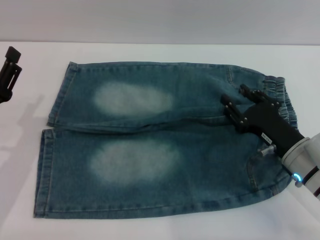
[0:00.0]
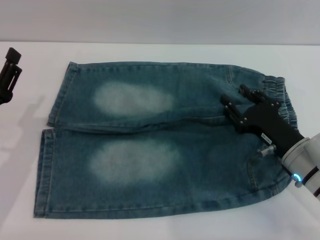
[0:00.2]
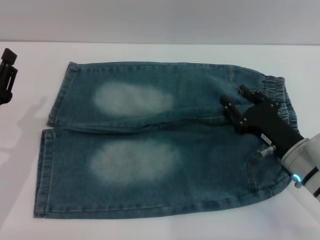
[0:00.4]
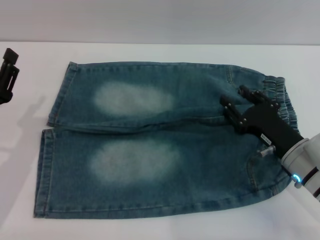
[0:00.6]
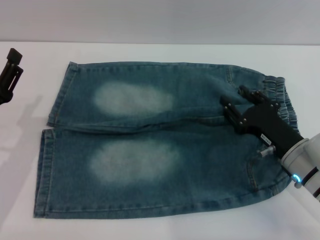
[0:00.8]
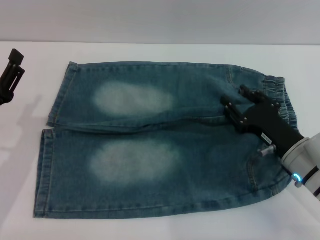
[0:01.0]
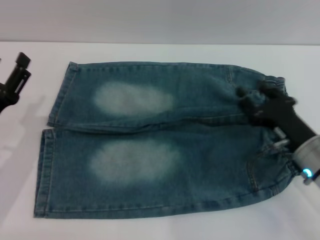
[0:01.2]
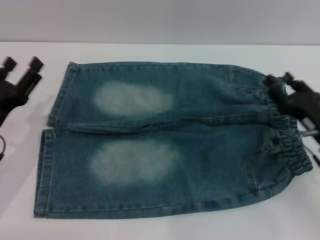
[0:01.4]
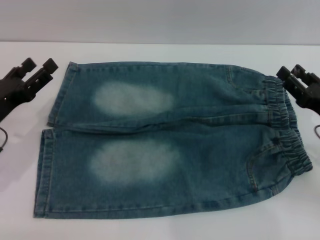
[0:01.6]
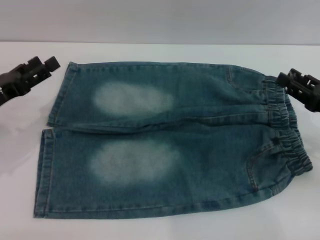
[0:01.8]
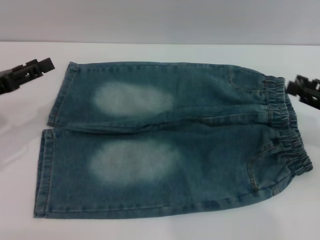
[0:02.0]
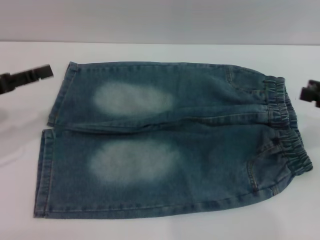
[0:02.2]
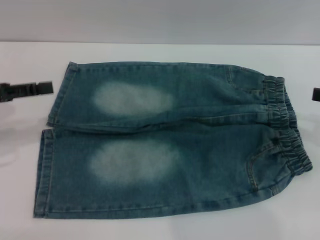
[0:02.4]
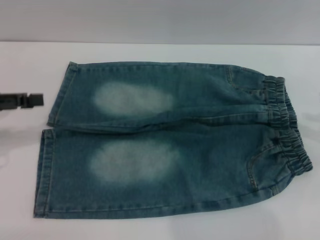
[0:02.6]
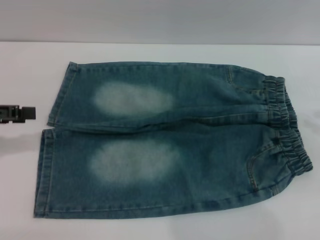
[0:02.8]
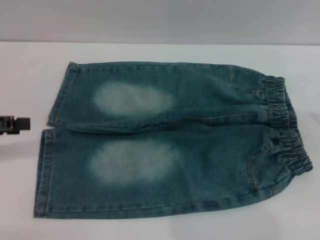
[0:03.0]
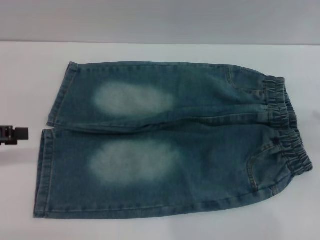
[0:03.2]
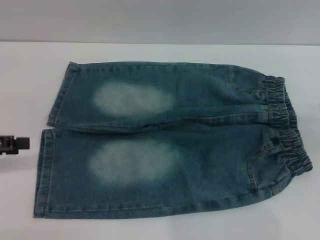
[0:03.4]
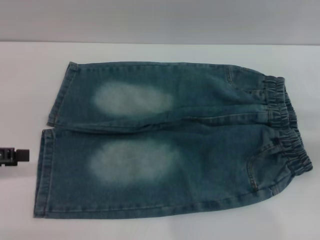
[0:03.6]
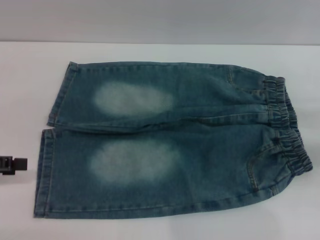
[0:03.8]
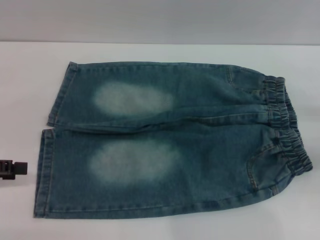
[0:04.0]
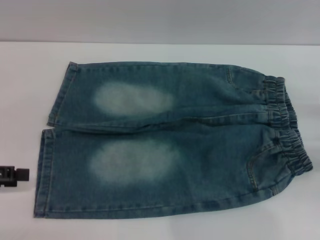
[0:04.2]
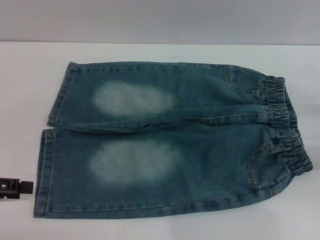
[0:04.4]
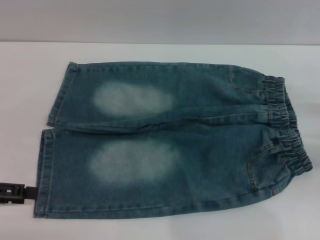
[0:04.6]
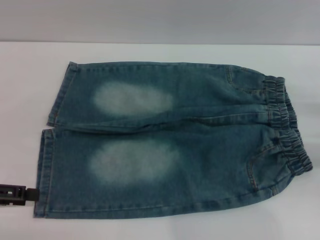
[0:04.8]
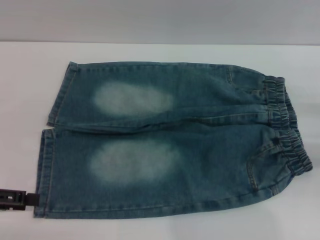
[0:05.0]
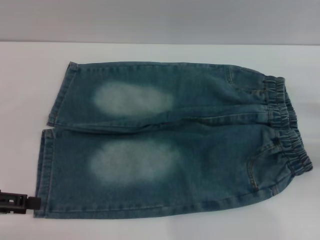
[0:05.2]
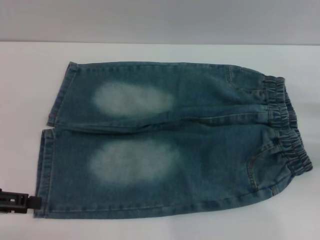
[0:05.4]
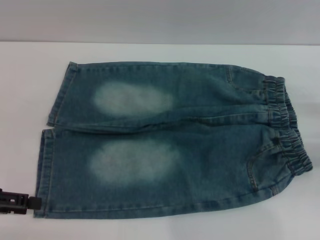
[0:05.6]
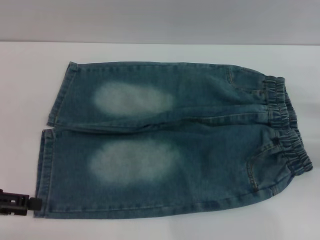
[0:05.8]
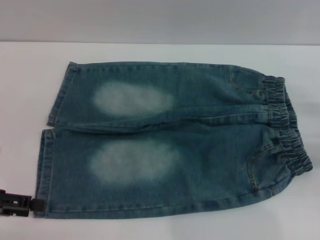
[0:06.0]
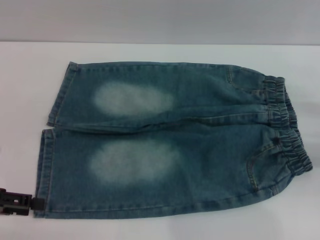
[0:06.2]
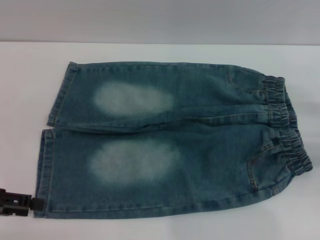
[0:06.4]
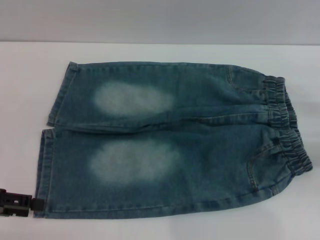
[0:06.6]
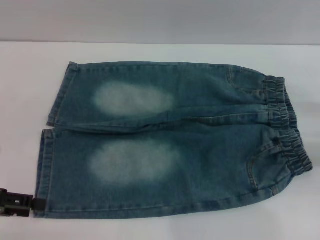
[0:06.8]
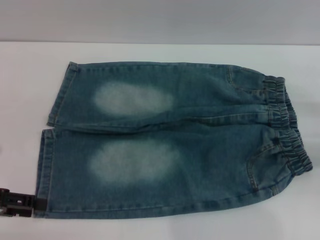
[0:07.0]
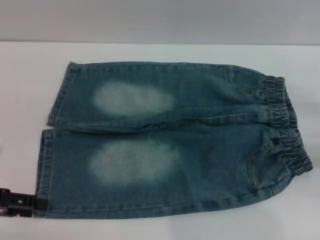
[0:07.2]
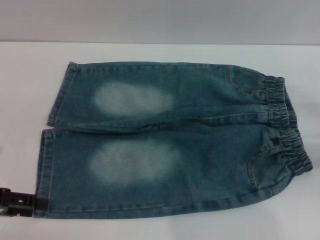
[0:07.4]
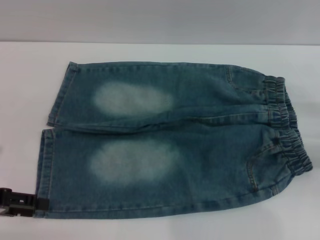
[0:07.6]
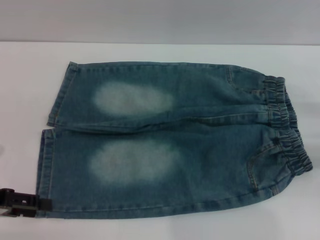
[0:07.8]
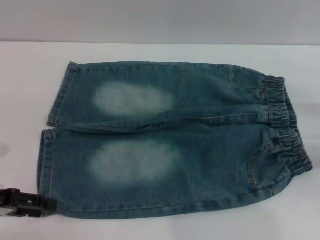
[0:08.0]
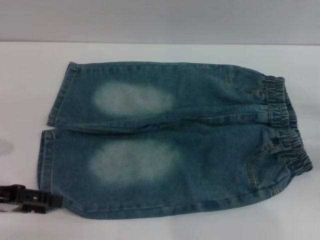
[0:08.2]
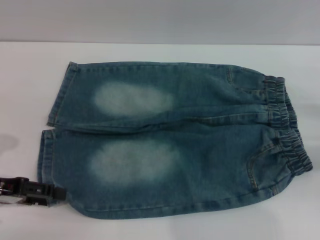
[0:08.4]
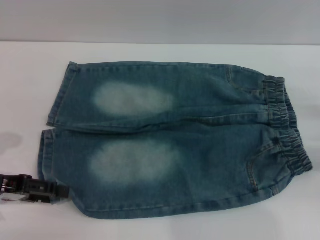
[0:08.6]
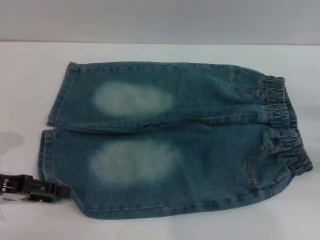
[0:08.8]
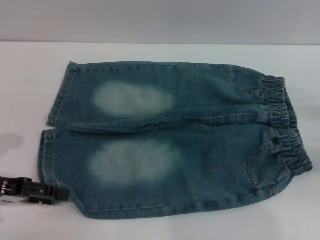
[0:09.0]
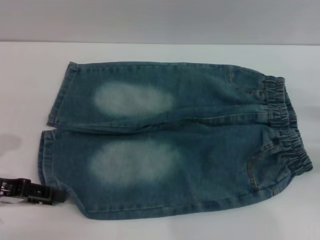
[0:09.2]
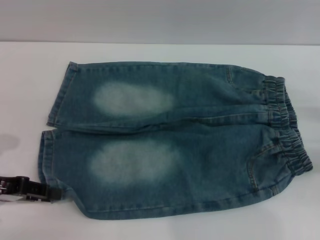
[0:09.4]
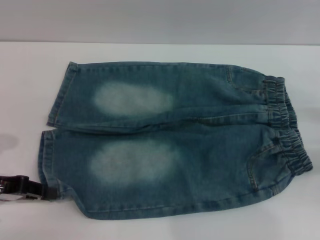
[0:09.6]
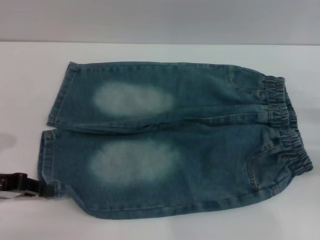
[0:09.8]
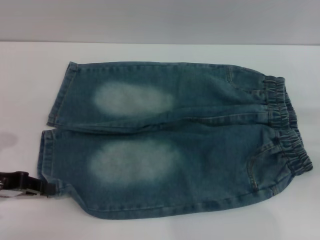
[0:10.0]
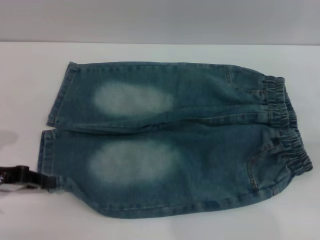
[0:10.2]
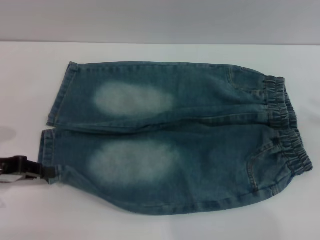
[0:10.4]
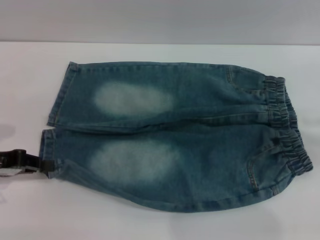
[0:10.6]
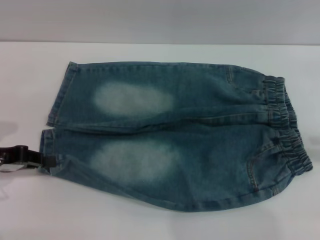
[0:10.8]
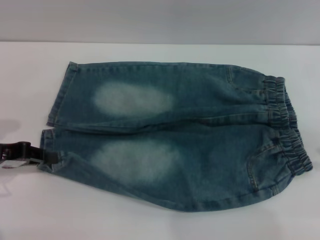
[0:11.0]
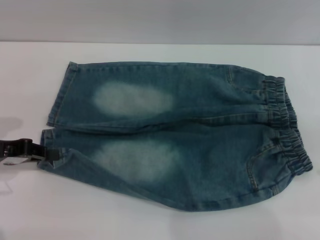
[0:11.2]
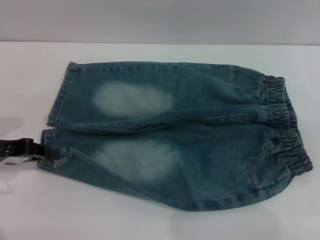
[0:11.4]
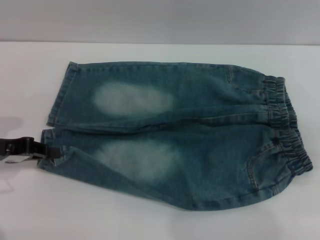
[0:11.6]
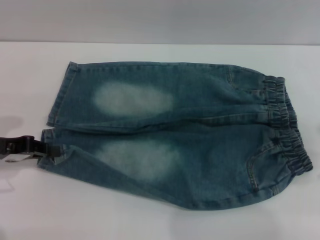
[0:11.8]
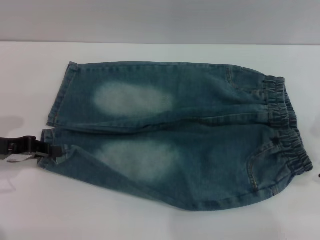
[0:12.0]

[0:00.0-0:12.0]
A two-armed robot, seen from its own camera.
0:00.0 to 0:01.6: The left gripper opens. The right gripper moves to the right, some 10 cm.
0:01.6 to 0:03.0: The left gripper heads upward and to the left, covering some 10 cm. The right gripper goes approximately 15 cm upward and to the right.
0:03.0 to 0:04.4: The left gripper ends up approximately 5 cm from where it was.
0:04.4 to 0:06.0: The grippers make only small movements.
0:06.0 to 0:07.6: Neither gripper changes place.
0:07.6 to 0:09.0: There are only small adjustments of the grippers.
0:09.0 to 0:10.4: The left gripper closes its fingers, while the right gripper is displaced upward by some 10 cm.
0:10.4 to 0:12.0: The right gripper is displaced to the left by roughly 5 cm.

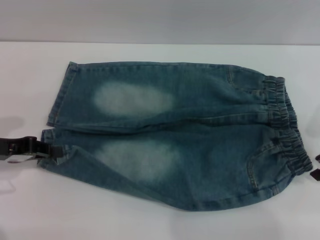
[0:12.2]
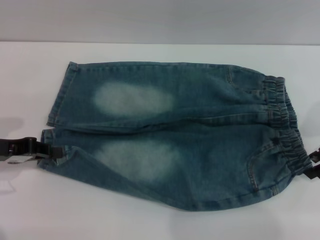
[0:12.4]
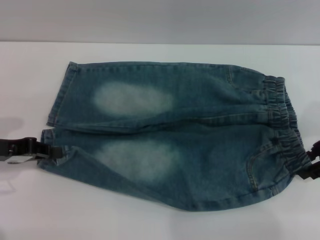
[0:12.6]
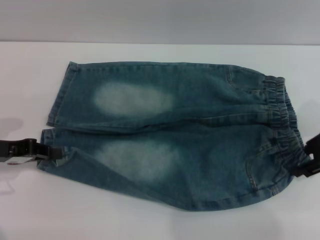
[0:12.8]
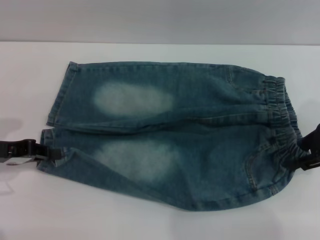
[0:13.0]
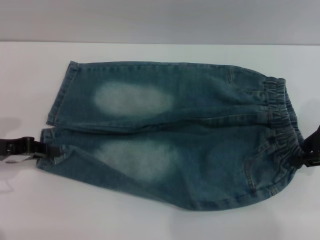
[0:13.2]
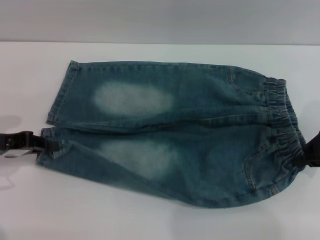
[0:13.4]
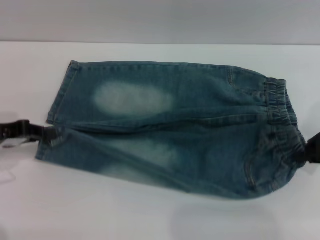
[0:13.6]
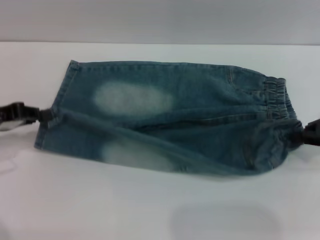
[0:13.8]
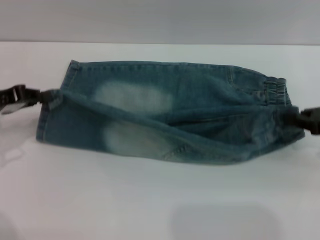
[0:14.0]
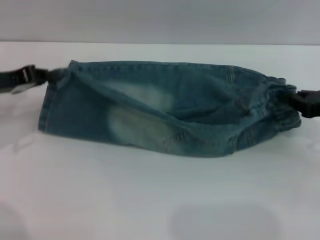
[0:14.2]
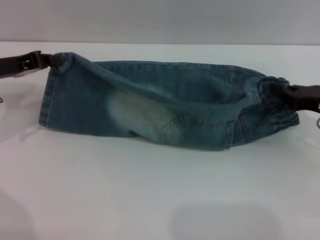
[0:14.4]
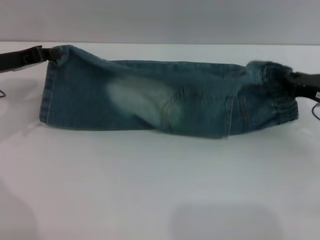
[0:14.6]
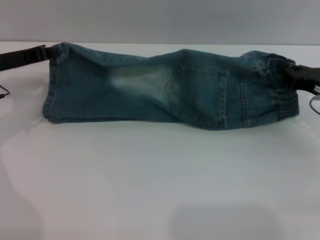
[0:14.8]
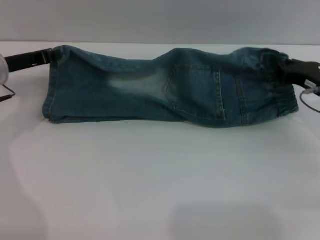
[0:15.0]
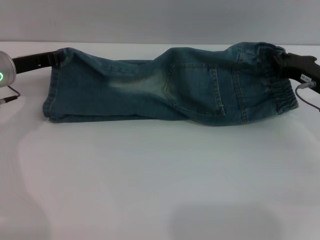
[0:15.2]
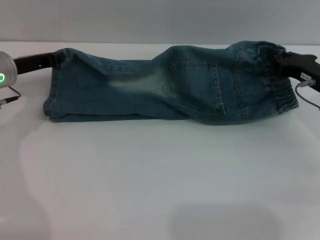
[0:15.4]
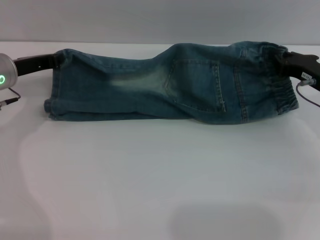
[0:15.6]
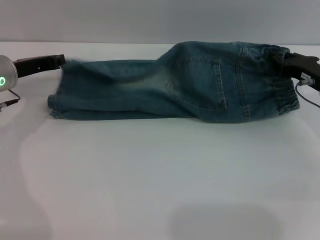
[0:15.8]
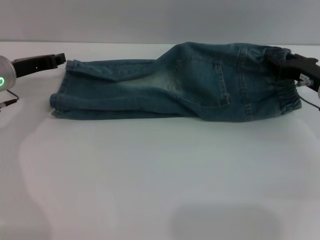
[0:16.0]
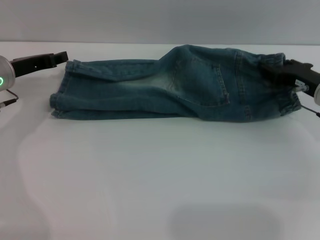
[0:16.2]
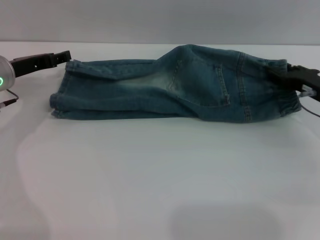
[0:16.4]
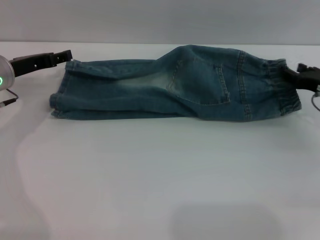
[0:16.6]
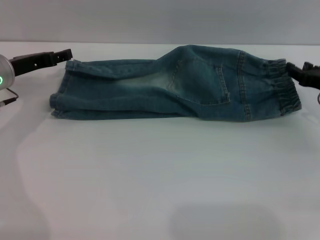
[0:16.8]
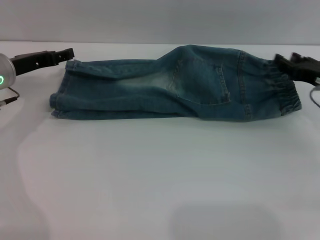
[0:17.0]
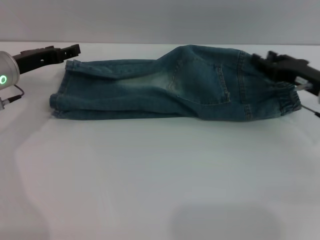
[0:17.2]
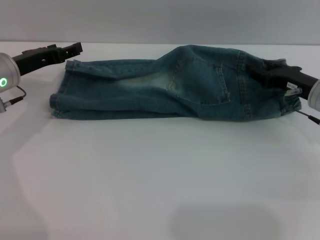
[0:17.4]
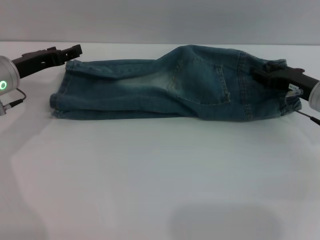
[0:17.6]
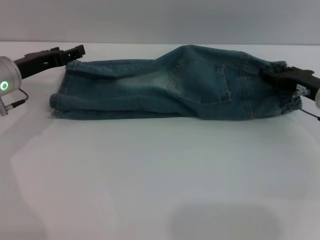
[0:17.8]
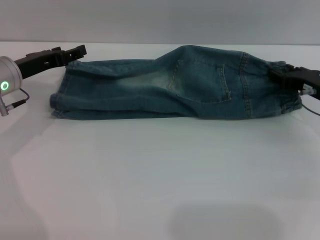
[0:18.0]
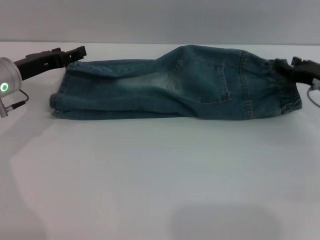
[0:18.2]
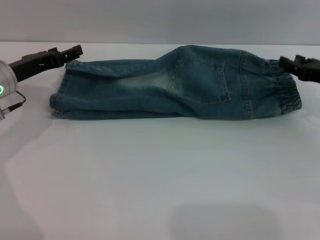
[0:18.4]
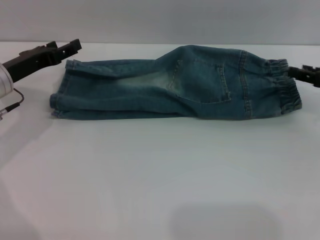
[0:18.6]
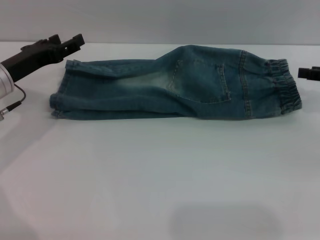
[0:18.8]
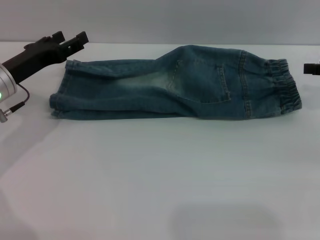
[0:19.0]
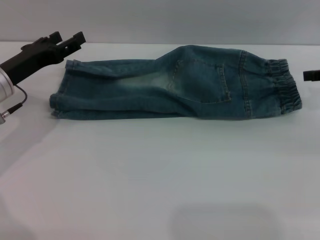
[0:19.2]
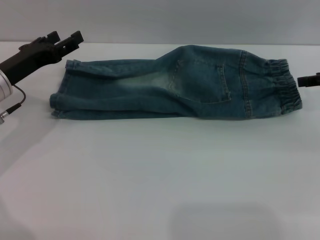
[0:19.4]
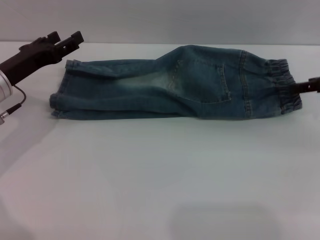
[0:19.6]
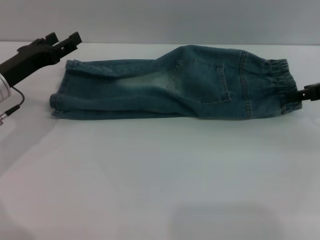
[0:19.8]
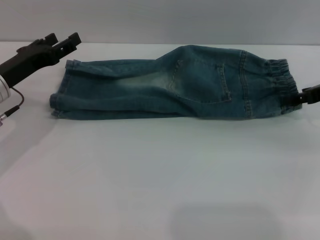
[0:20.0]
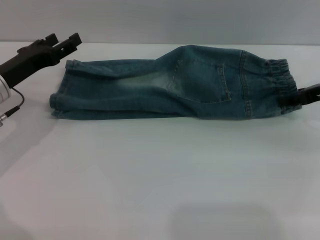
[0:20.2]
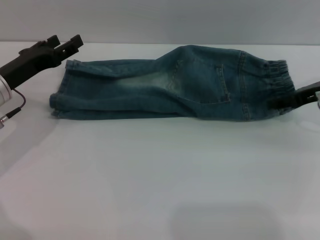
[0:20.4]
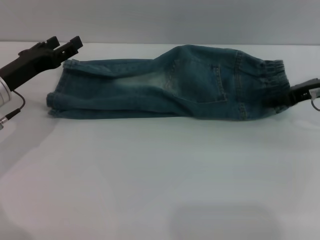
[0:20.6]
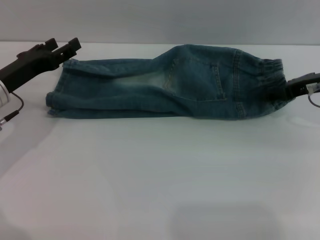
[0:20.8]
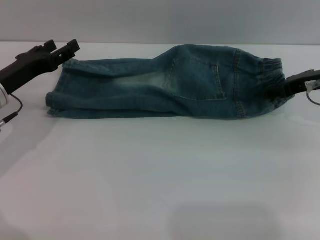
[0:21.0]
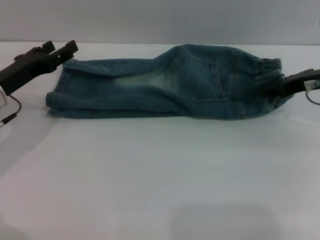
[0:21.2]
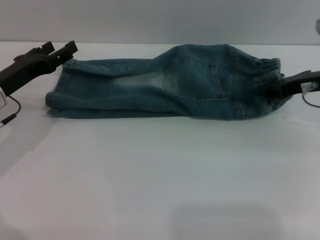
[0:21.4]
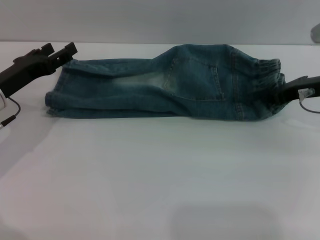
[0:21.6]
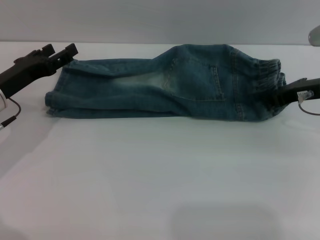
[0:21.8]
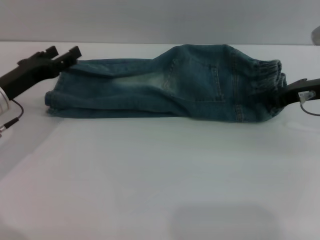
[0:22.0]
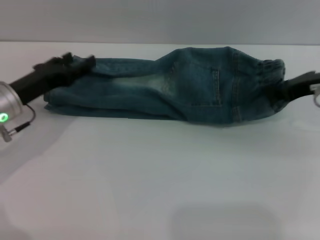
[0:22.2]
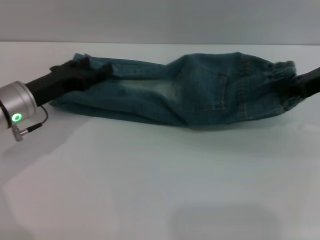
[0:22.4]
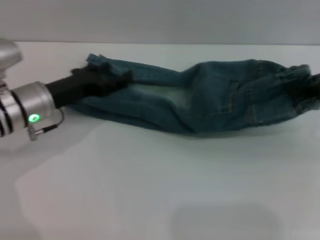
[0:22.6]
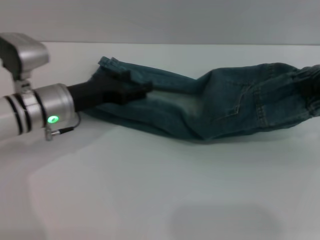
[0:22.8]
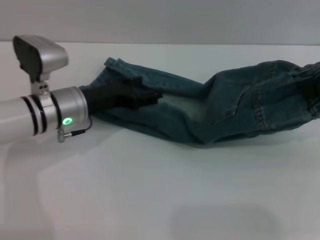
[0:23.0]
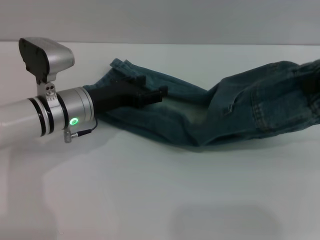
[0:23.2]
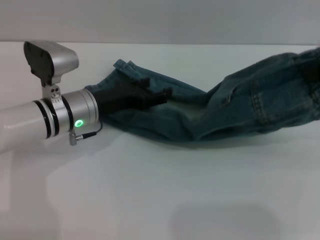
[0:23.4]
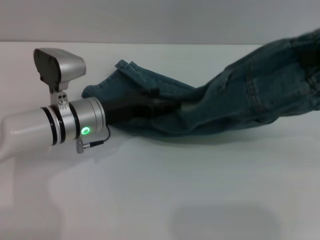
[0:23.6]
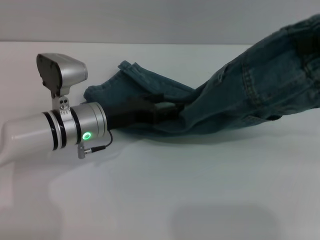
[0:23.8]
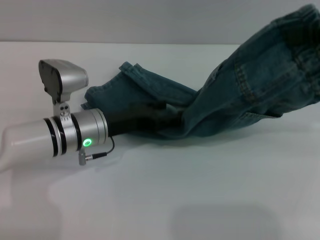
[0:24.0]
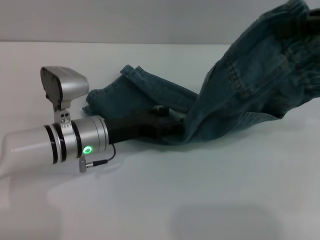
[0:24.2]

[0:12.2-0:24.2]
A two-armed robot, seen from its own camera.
Step, 0:12.2 to 0:18.4: Fold the bottom of the pants upward with both grippers.
0:12.2 to 0:13.8: The right gripper closes its fingers.
0:13.8 to 0:15.2: The right gripper goes roughly 10 cm downward and to the left; the left gripper travels forward and to the right by roughly 10 cm.
0:15.2 to 0:16.6: The right gripper opens up. Meanwhile the left gripper opens.
0:16.6 to 0:18.2: There are only small adjustments of the grippers.
0:18.2 to 0:19.8: The right gripper is displaced upward by roughly 5 cm.
0:19.8 to 0:21.2: The right gripper moves about 5 cm.
0:21.2 to 0:22.6: The left gripper shifts roughly 5 cm to the right; the right gripper shifts some 10 cm upward and backward, and closes its fingers.
0:22.6 to 0:24.2: The left gripper is displaced to the right by about 5 cm; the right gripper goes approximately 10 cm upward.
